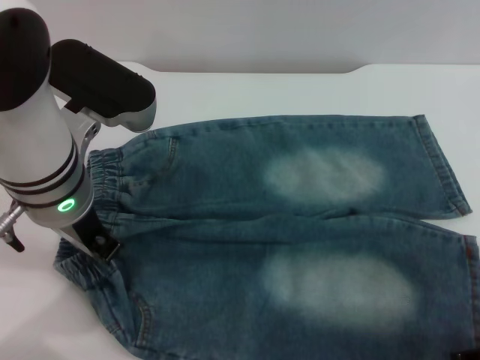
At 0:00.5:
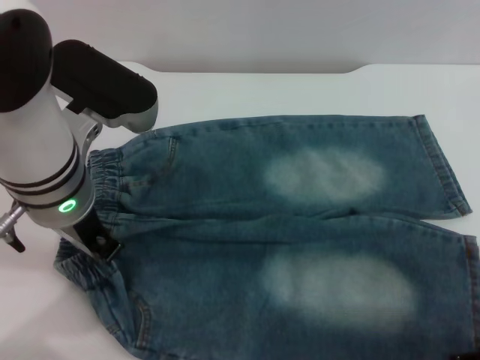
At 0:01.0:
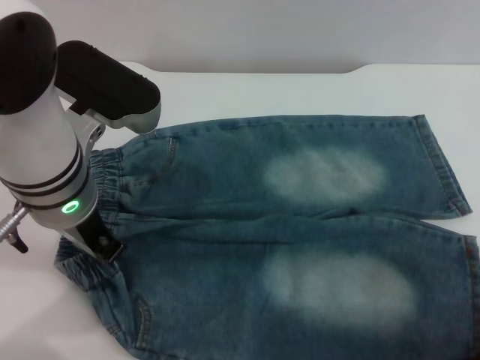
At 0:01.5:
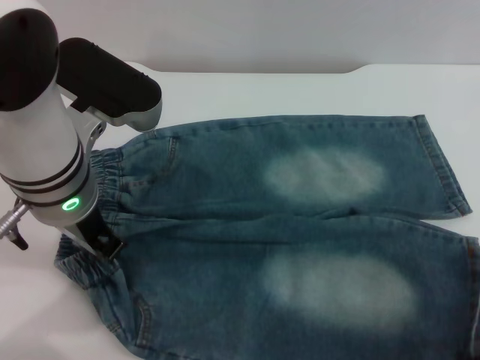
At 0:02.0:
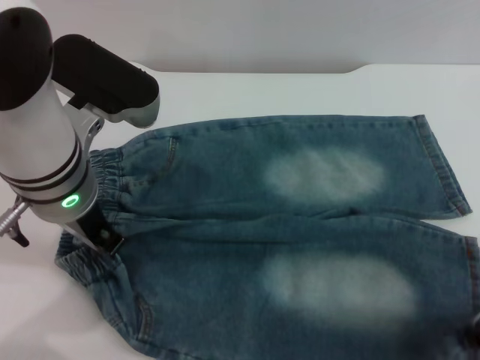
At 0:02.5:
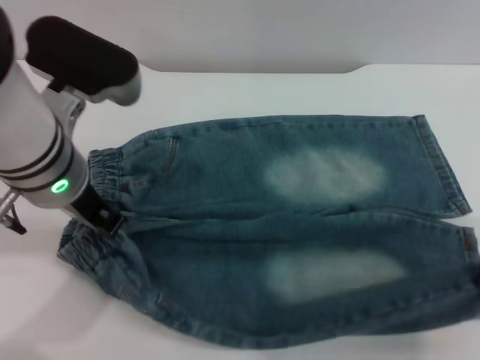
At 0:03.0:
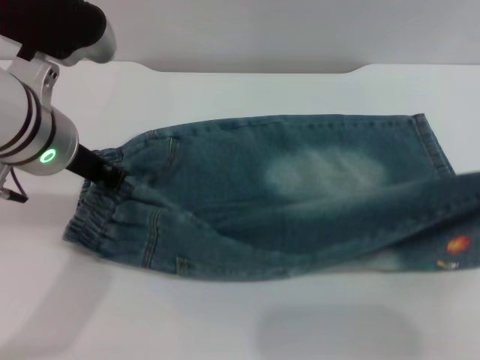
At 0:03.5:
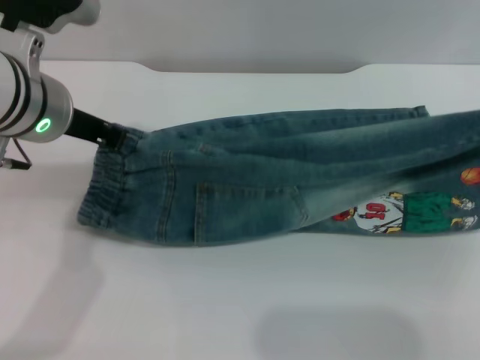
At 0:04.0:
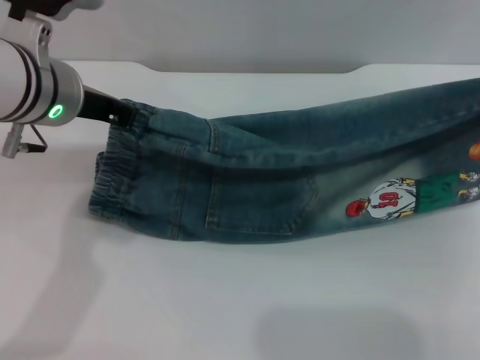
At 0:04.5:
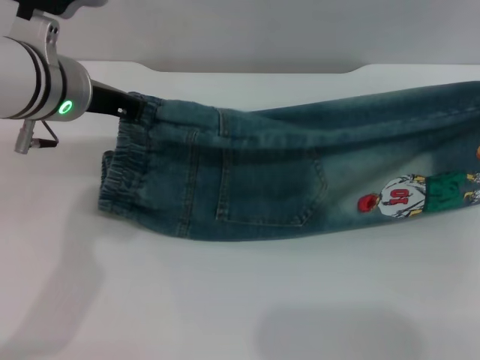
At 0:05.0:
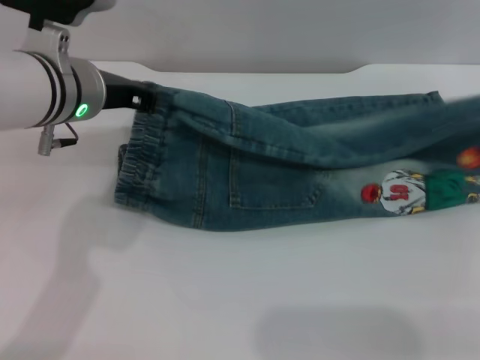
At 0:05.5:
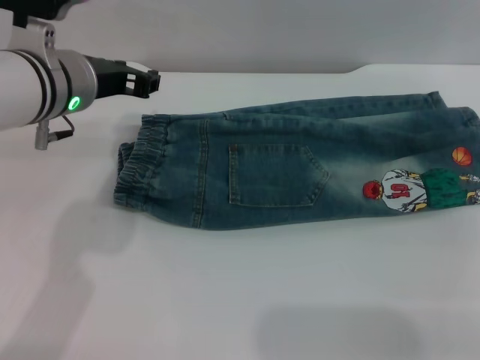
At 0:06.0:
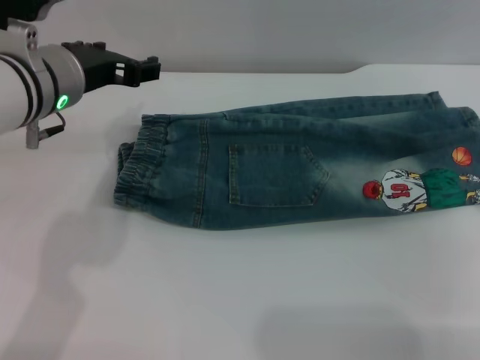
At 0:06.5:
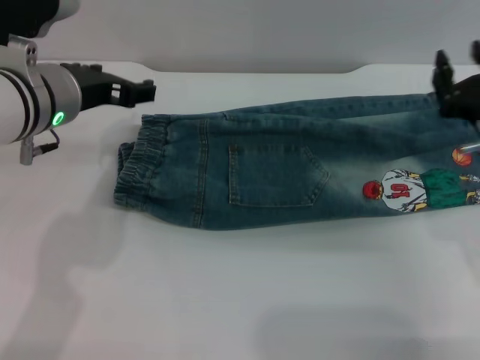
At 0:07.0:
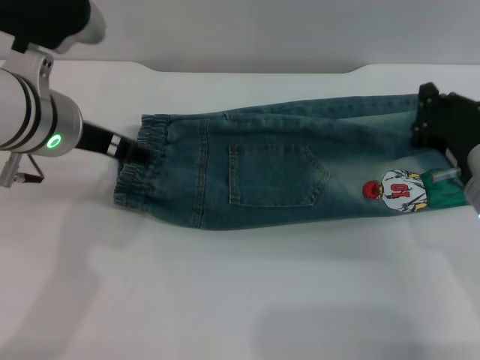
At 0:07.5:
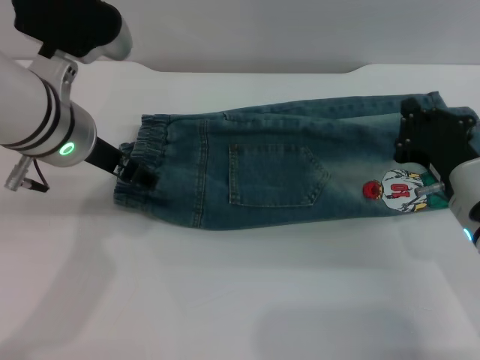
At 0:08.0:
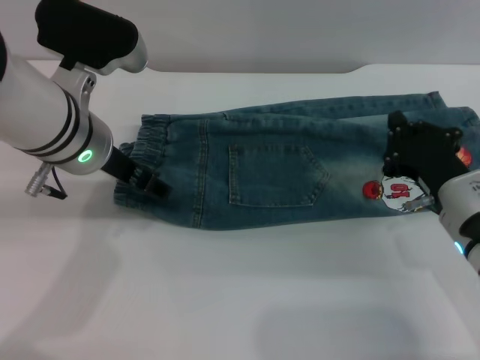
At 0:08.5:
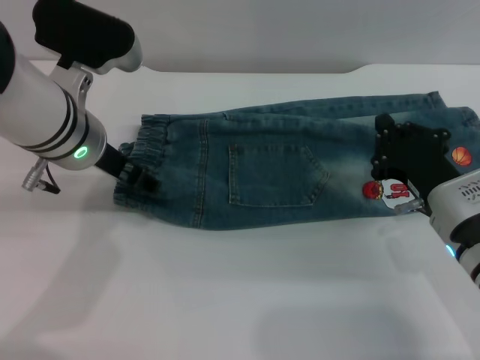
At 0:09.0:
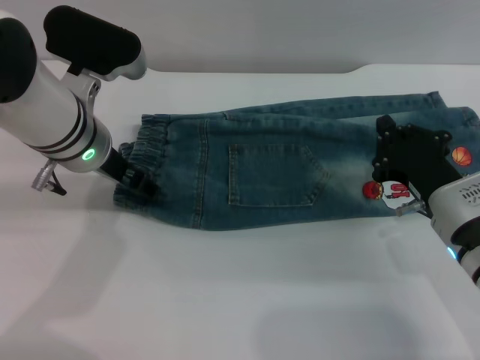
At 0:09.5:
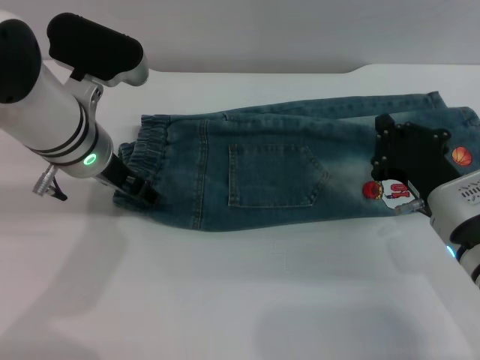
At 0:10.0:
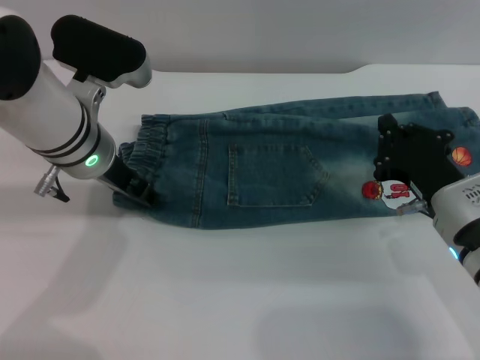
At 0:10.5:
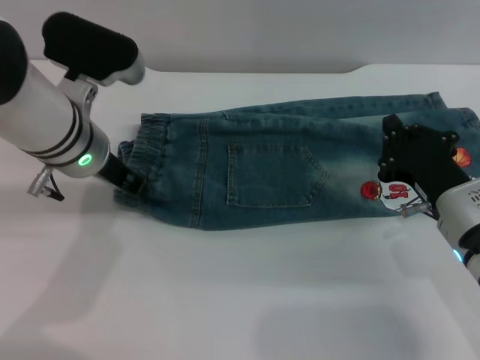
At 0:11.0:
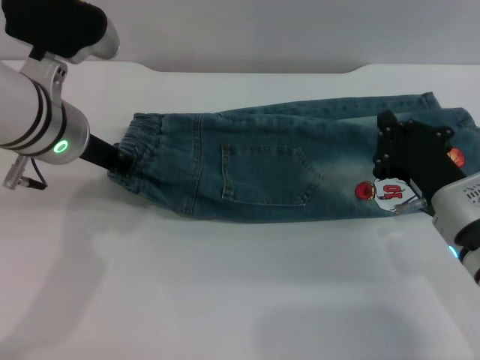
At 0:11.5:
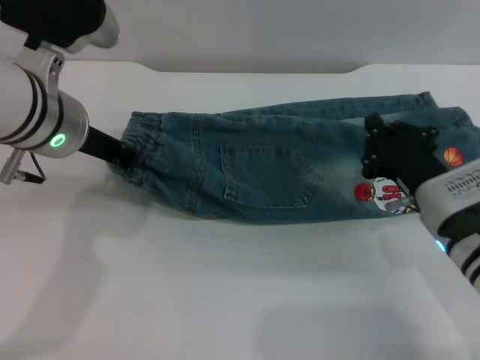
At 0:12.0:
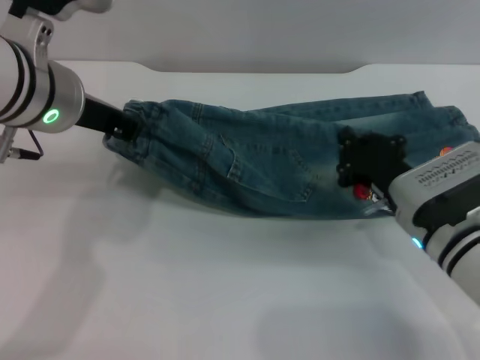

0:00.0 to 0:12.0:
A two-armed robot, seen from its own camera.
Step, 0:00.0 to 0:07.5: Fold the bottom of the pants upward with both grippers.
0:02.0 to 0:04.0: The left gripper ends up about 5 cm from where it was; the right gripper heads forward, covering about 5 cm.
0:04.0 to 0:06.0: The right gripper opens. The left gripper opens up.
0:06.0 to 0:08.0: The right gripper moves downward and to the left, approximately 15 cm, and closes up.
0:08.0 to 0:10.0: There are only small adjustments of the grippers.
0:10.0 to 0:12.0: The left gripper shifts some 10 cm upward, and closes up.

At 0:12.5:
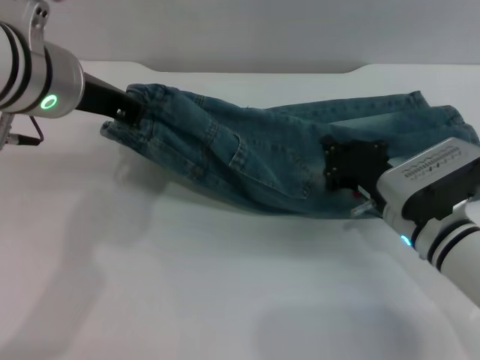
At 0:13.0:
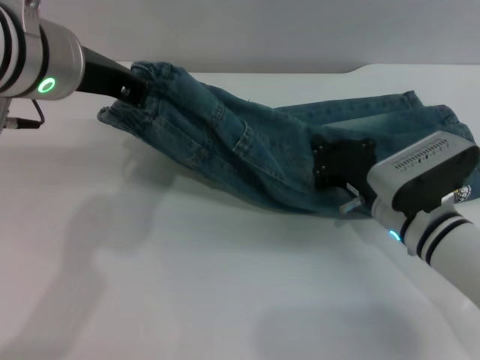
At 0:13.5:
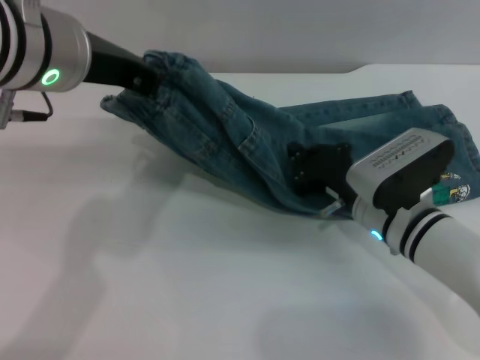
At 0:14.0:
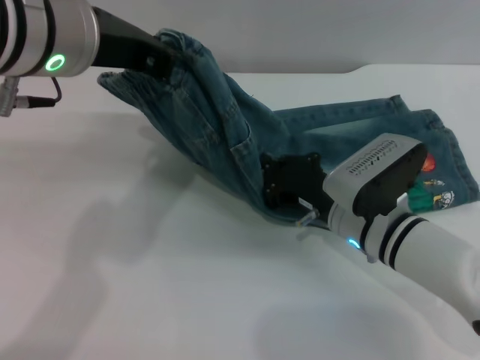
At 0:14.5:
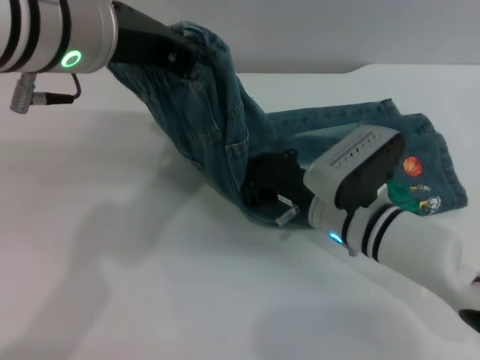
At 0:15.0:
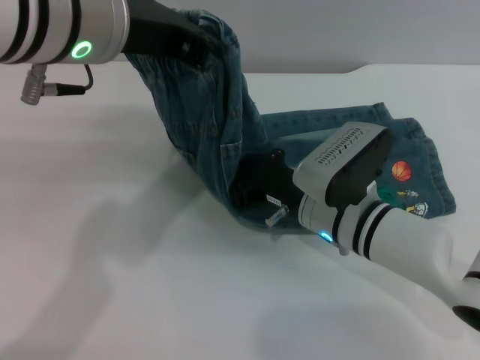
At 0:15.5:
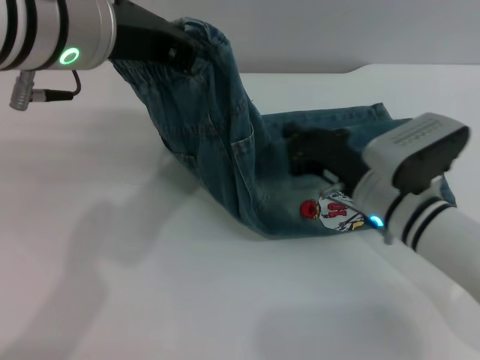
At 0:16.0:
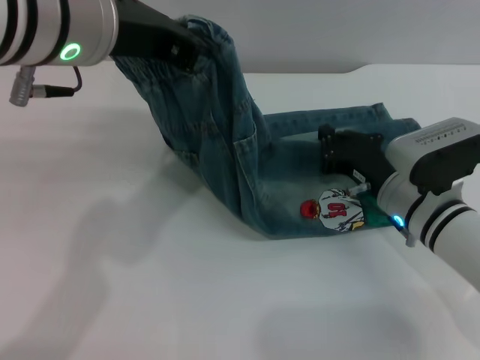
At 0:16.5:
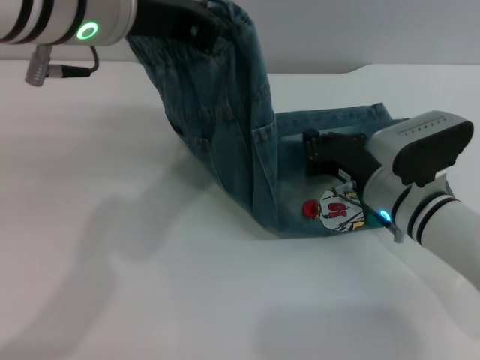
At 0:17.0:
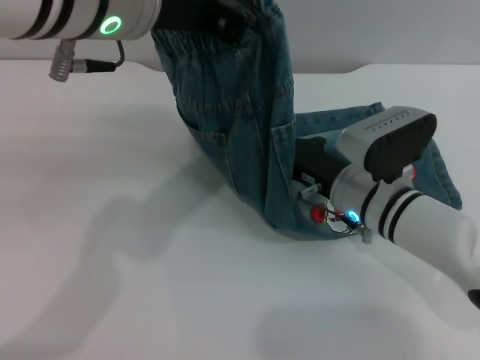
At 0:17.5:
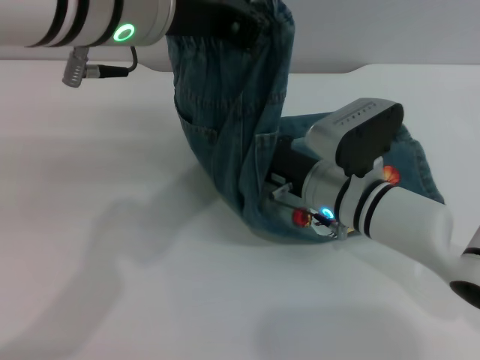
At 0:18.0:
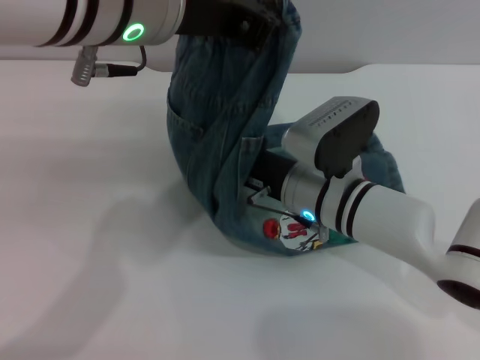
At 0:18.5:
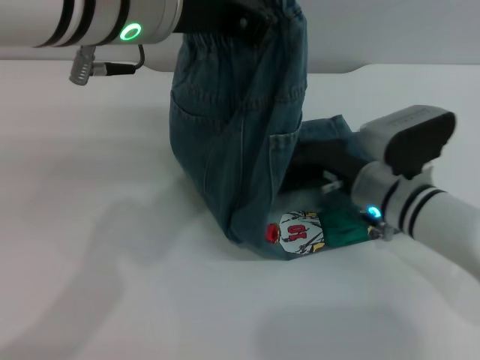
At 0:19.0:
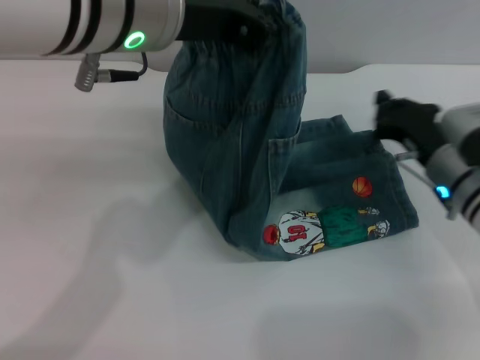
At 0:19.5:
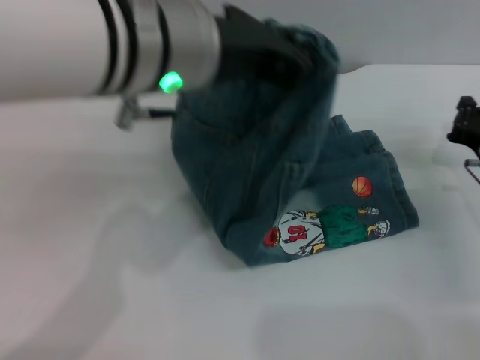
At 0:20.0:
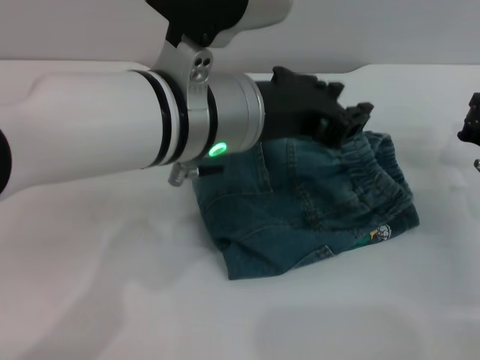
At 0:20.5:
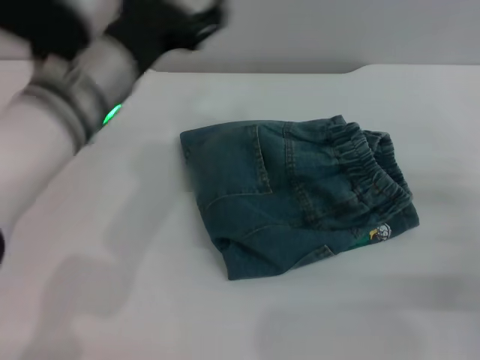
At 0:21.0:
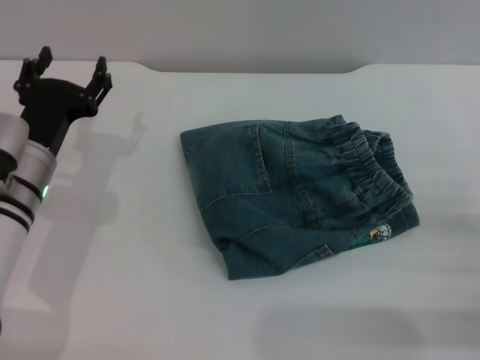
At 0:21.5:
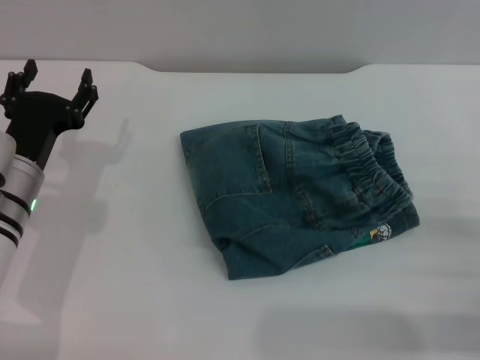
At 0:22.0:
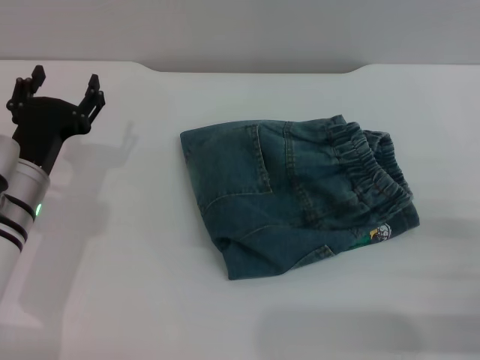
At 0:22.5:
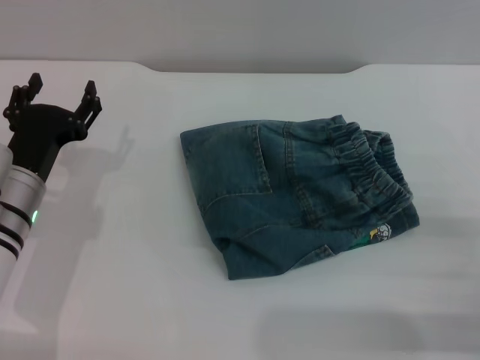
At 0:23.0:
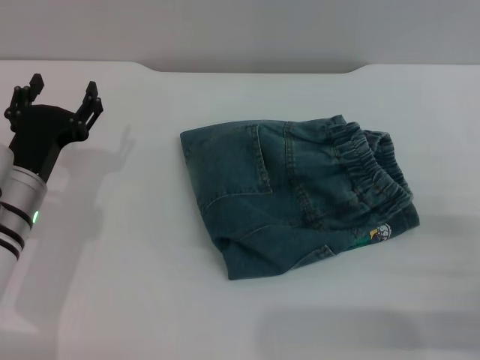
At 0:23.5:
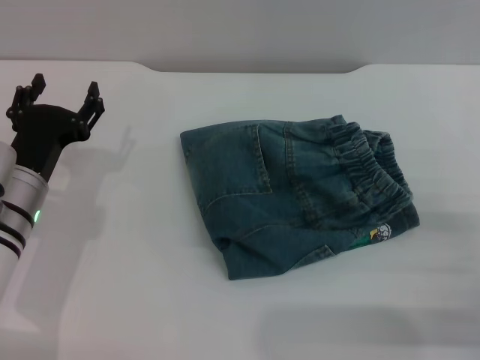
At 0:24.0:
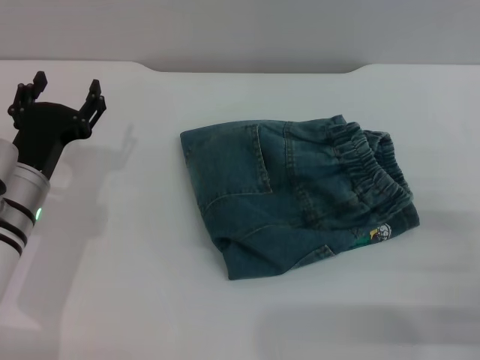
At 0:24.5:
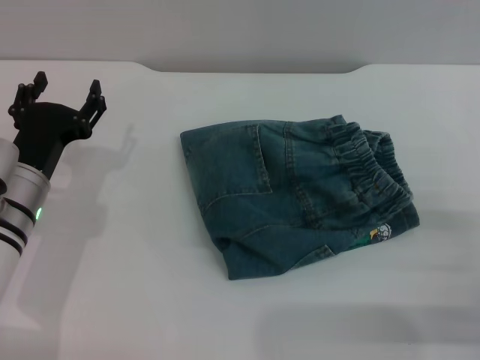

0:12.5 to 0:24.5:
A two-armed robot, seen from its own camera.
Step, 0:12.5 to 0:20.0: Fold the pants from left to right with the left gripper.
0:12.5 to 0:14.5: The left gripper changes place by roughly 5 cm. Meanwhile the right gripper heads to the left, covering about 5 cm.
0:14.5 to 0:16.5: The right gripper goes about 5 cm to the right.
0:16.5 to 0:18.5: The right gripper travels to the left and back again, some 10 cm each way.
0:18.5 to 0:20.5: The right gripper goes about 20 cm to the right and backward; the left gripper goes roughly 10 cm downward, and opens up.
0:20.5 to 0:22.5: The right gripper opens; the left gripper moves downward and to the left, roughly 15 cm.
0:22.5 to 0:24.5: The two grippers keep their place.
